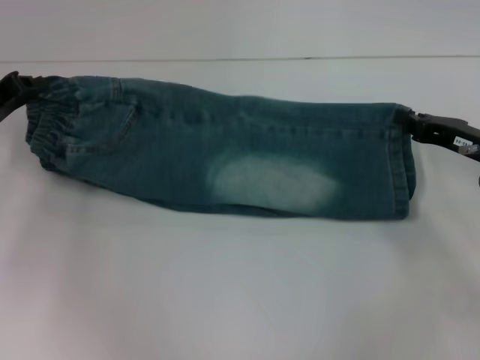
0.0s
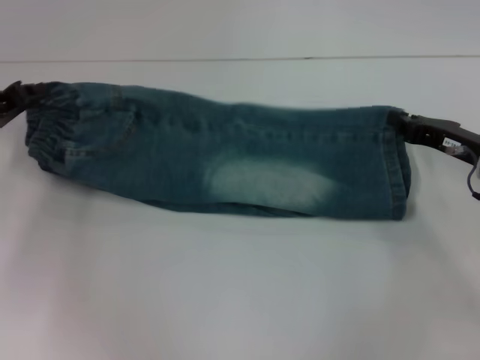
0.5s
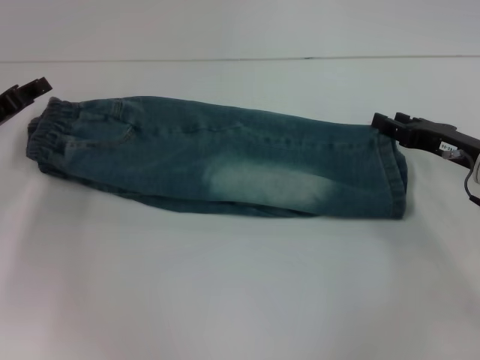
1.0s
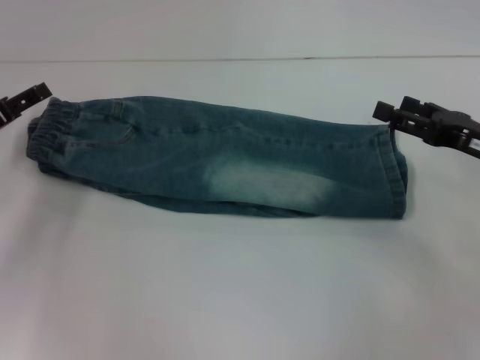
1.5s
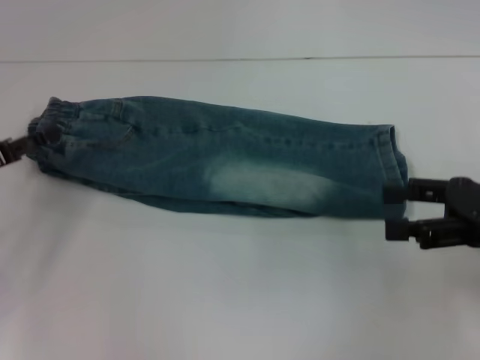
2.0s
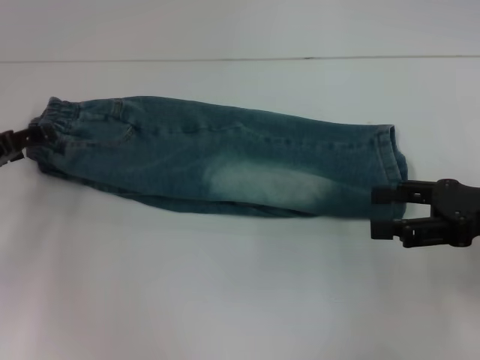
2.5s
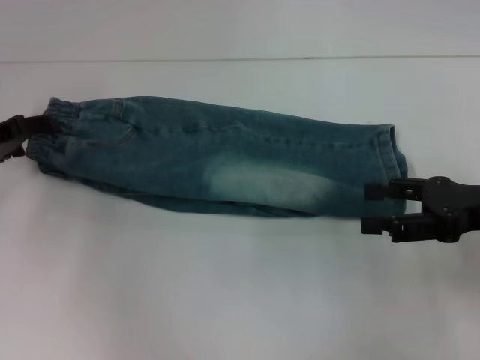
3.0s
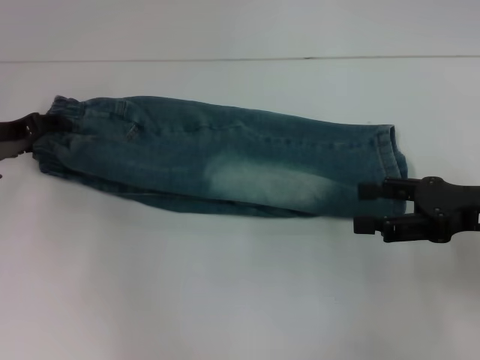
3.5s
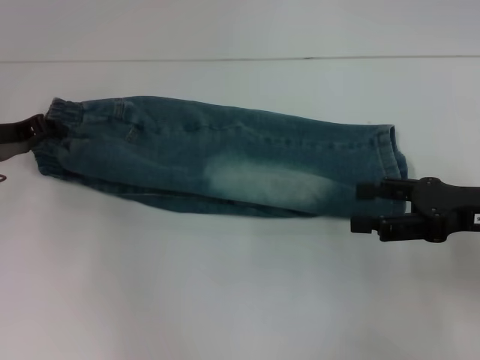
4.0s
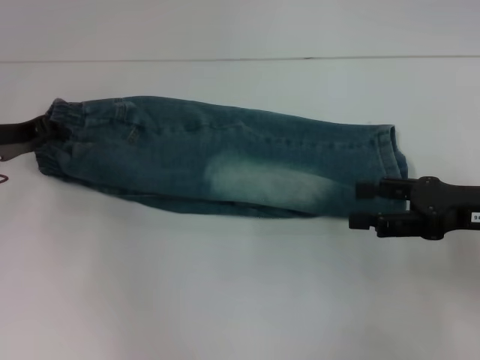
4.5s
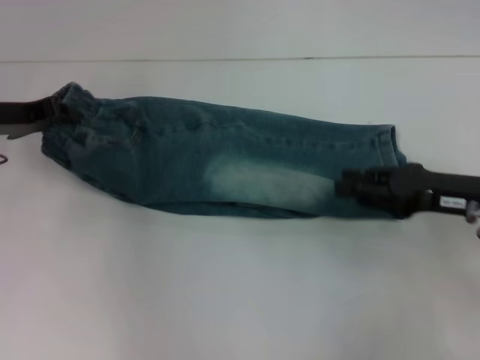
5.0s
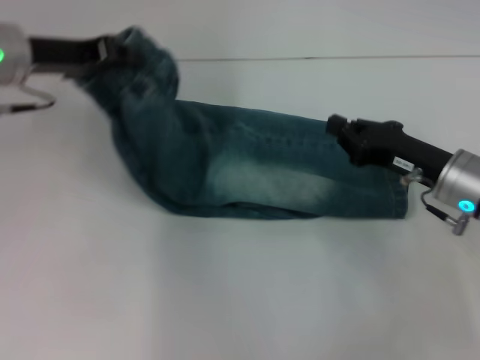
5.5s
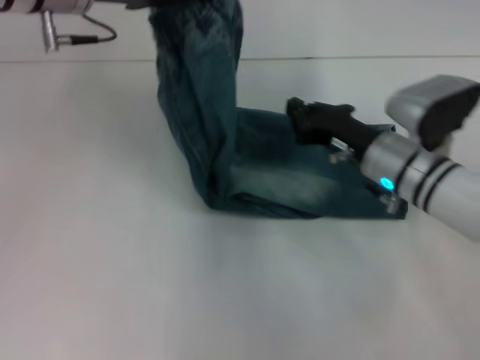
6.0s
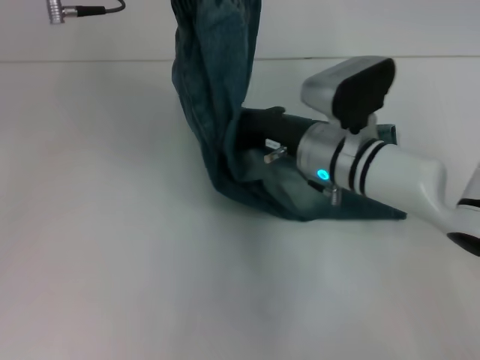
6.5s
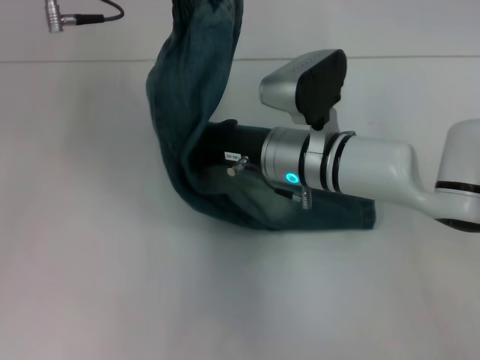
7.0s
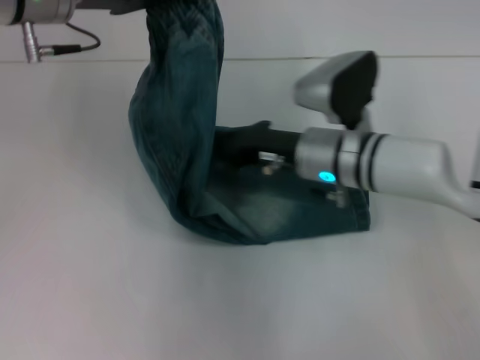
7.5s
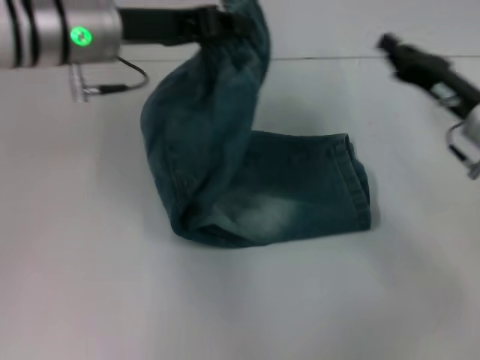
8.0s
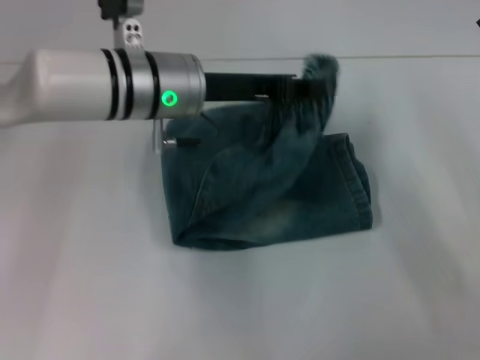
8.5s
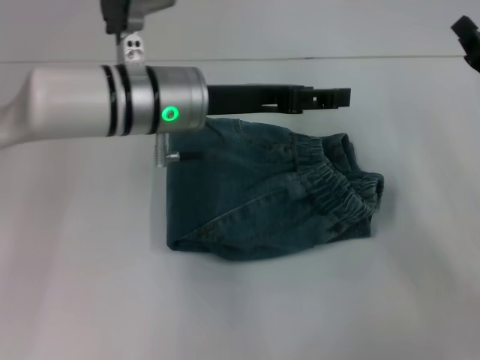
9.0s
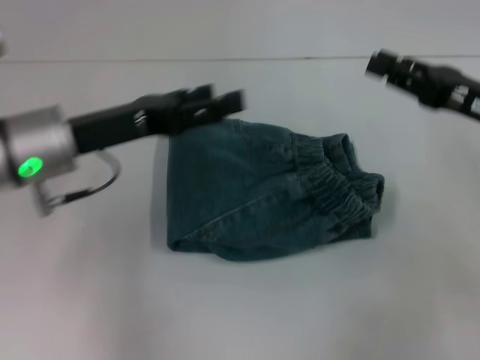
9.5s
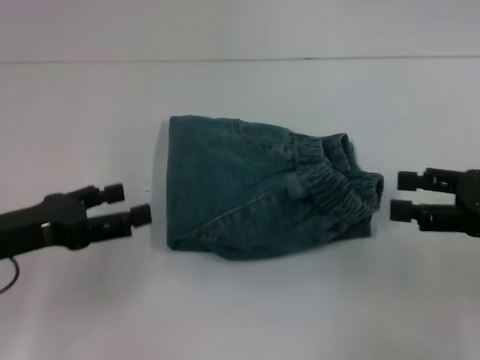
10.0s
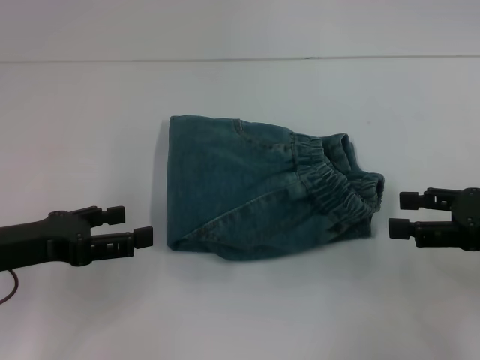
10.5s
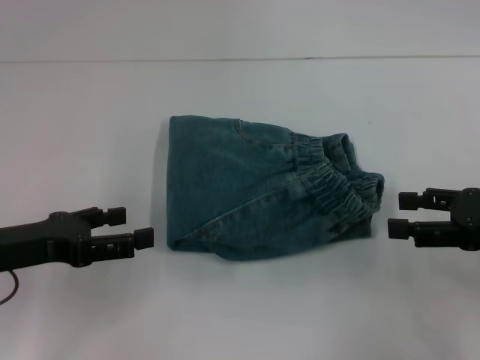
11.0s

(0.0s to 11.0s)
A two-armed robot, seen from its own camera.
Step, 1.0s - 4.0s: Hold the waistband with your left hand.
Step, 4.5s - 7.0s: Press the middle of the pants with your right hand.
Step, 7.5s - 8.5s: Fold to the right with your left hand.
0.0s - 2.0s: The right gripper travels backward and upward by roughly 10 cm, and opens its fingers. The left gripper moves backward, roughly 5 cm, and opens its fingers.
2.0s - 3.5s: The left gripper goes some 10 cm forward.
3.5s - 5.5s: The left gripper shifts roughly 15 cm upward and to the right, and closes up, while the right gripper goes approximately 10 cm downward and to the left, and closes.
5.5s - 7.5s: The right gripper shifts some 15 cm to the left.
7.5s - 9.0s: The right gripper moves to the right, roughly 20 cm. The left gripper shifts roughly 15 cm to the right and downward, and opens up.
9.0s - 11.0s: The left gripper is displaced to the left and backward by about 20 cm, and opens its fingers. The right gripper shifts approximately 5 cm backward, and opens up.

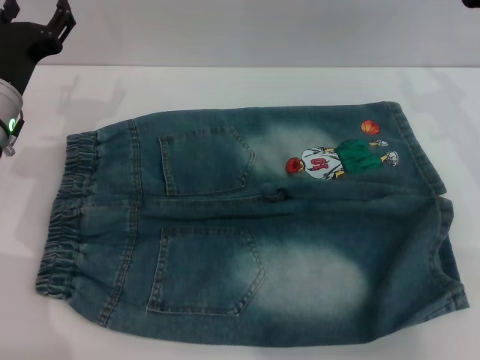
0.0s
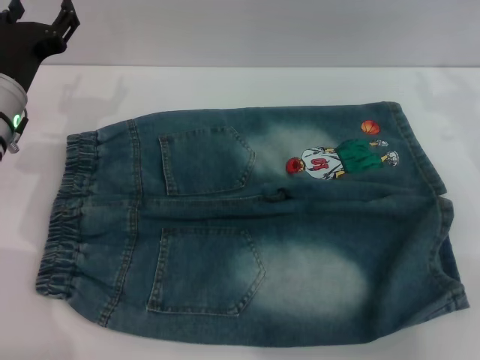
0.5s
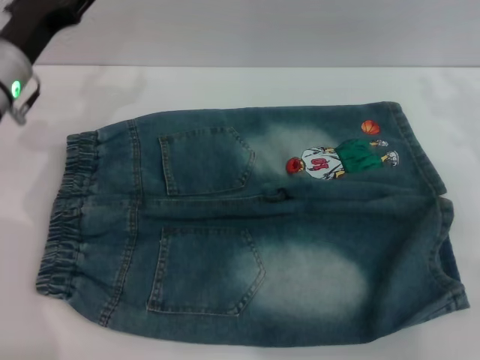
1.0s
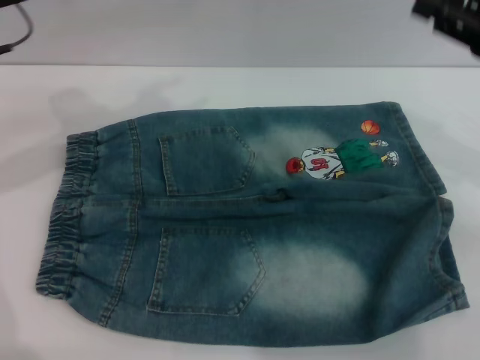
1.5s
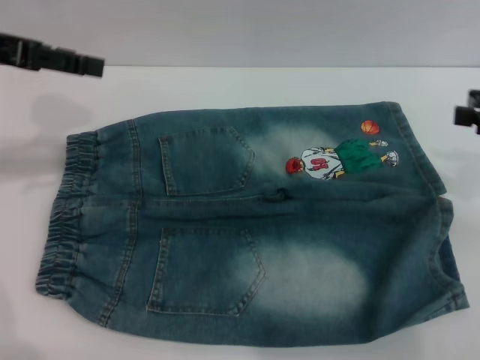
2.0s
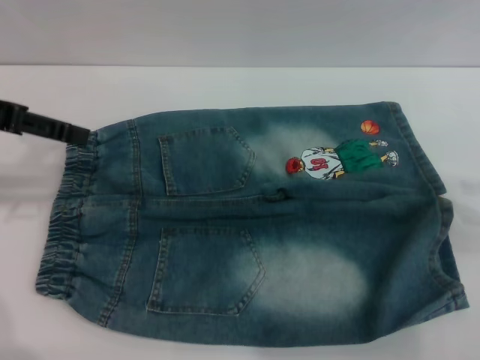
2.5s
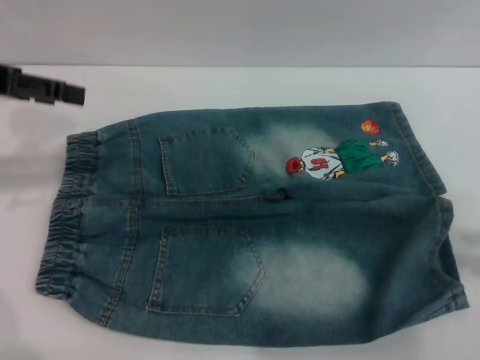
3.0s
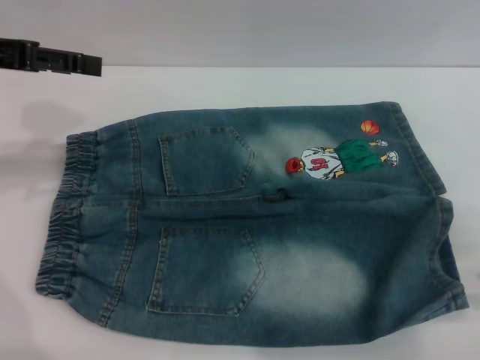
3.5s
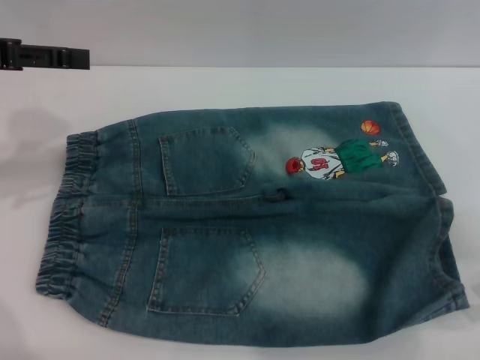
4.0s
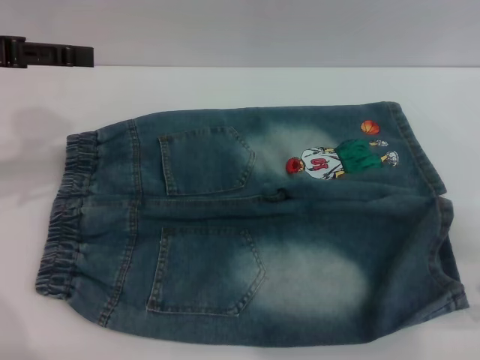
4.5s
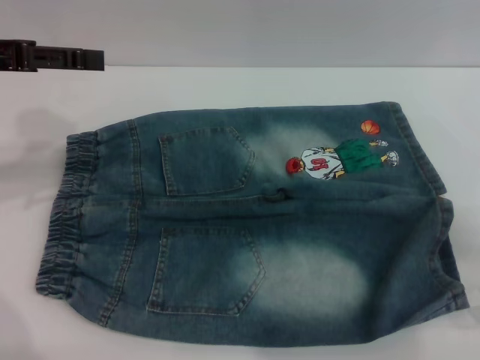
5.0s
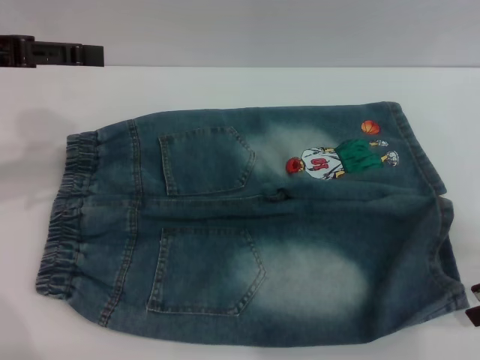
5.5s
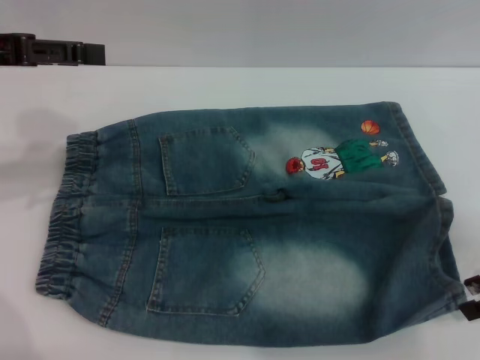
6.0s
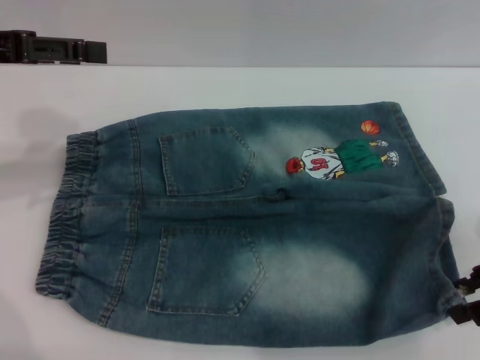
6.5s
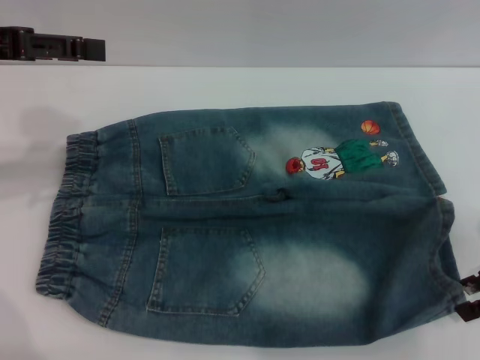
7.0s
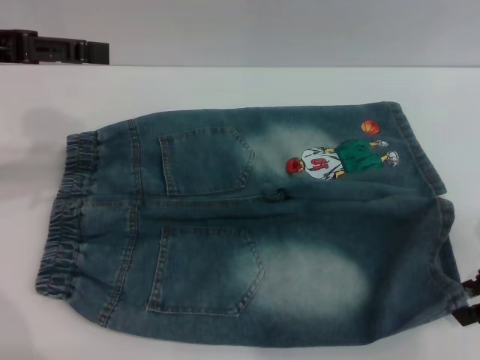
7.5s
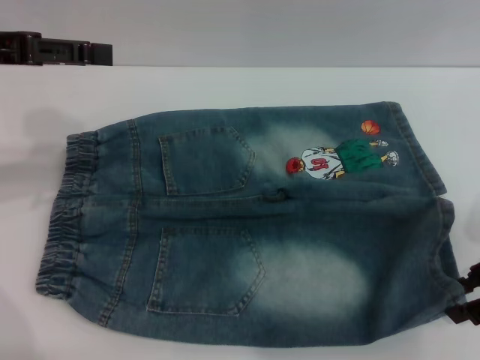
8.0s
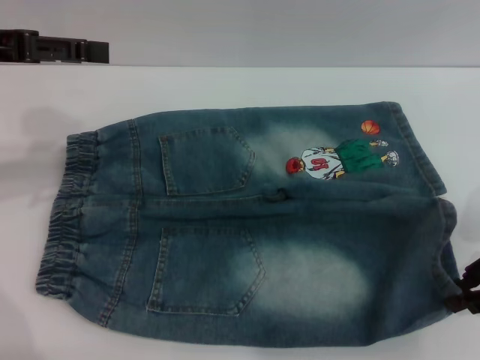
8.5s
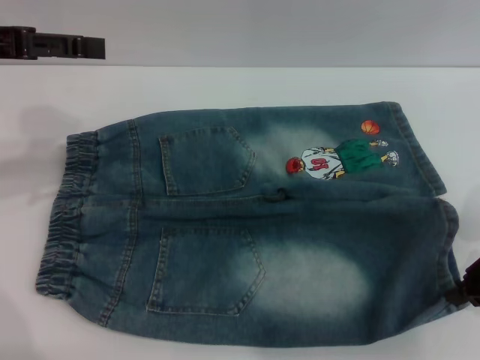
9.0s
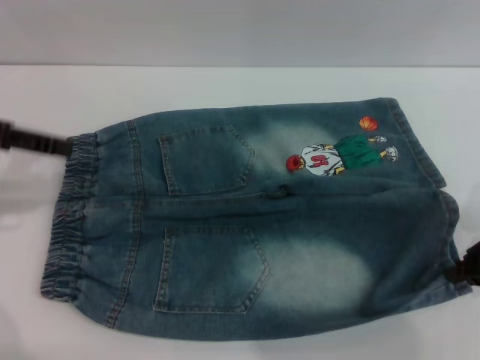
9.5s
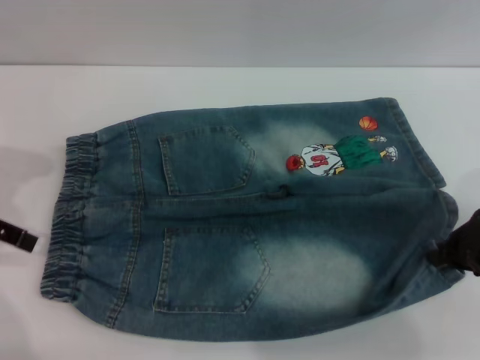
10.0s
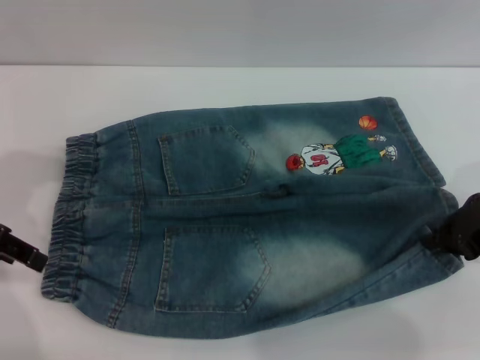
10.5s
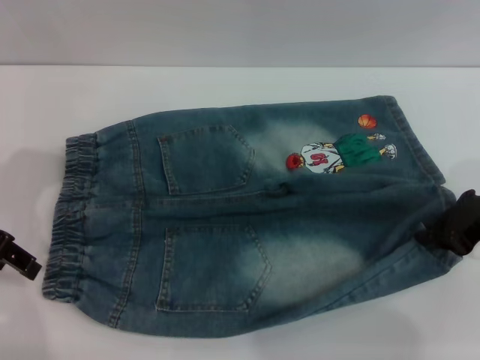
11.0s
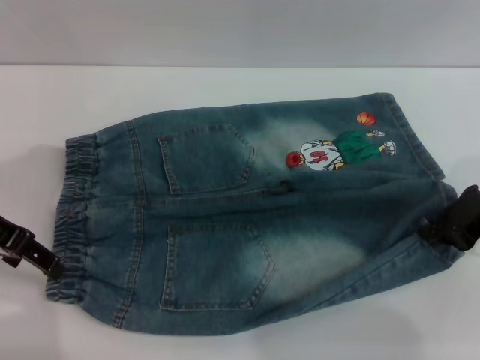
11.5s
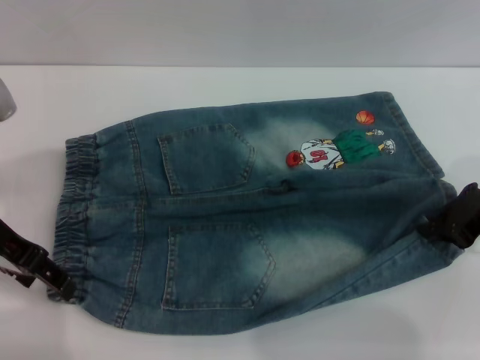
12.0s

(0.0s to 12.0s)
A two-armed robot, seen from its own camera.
0.0s - 2.0s: The left gripper shifts about 15 cm upward.
4.0s - 6.0s: The grippers move only a little.
6.0s - 8.0s: The grippers make only small movements.
8.0s - 10.0s: The left gripper heads downward, covering roughly 5 cm. Meanwhile the right gripper closes.
10.0s - 12.0s: The left gripper moves to the right, approximately 5 cm.

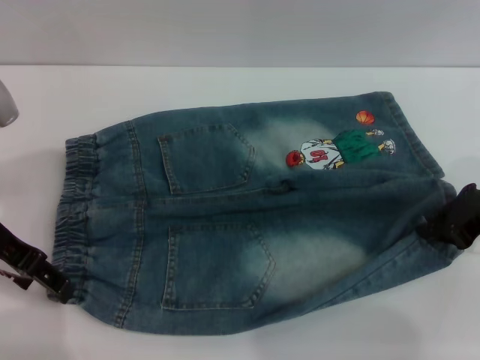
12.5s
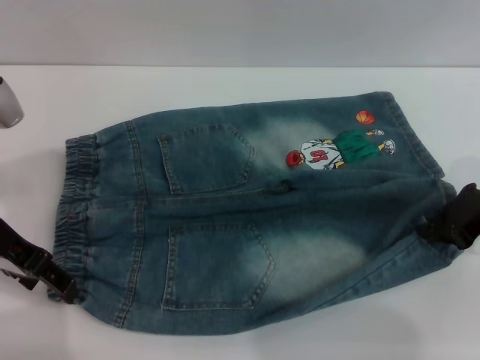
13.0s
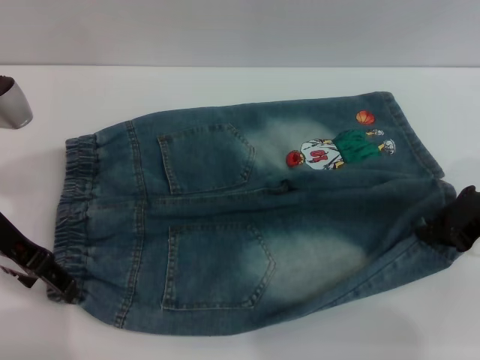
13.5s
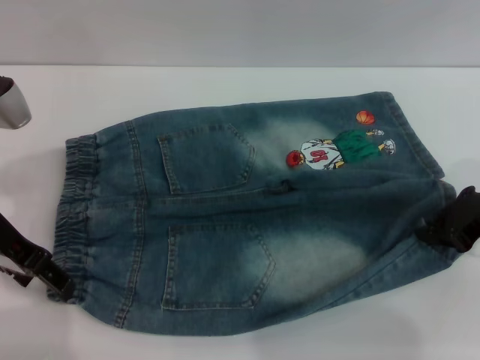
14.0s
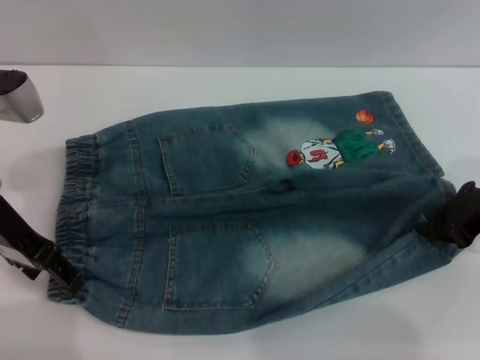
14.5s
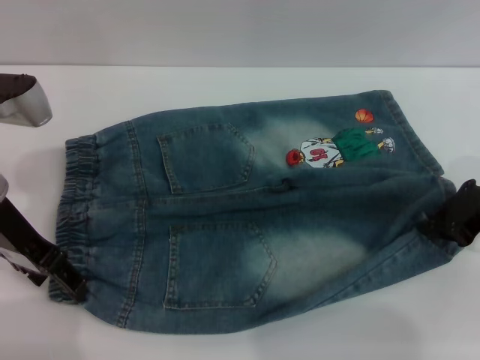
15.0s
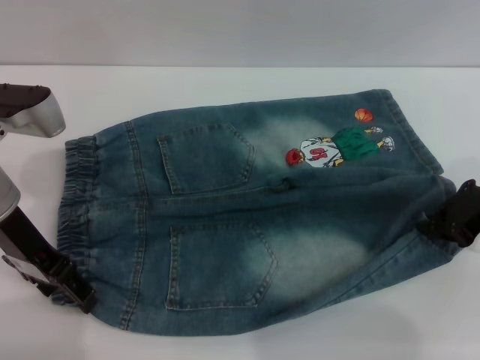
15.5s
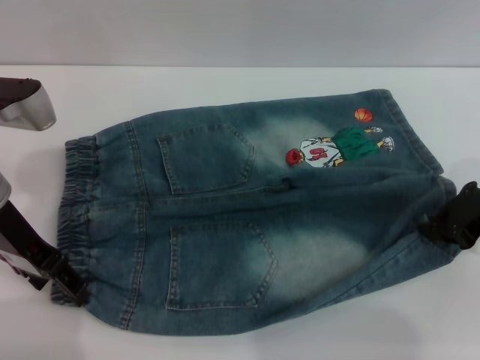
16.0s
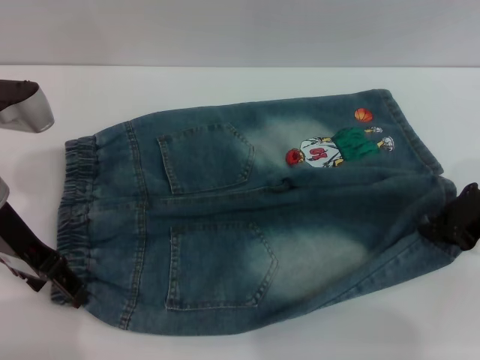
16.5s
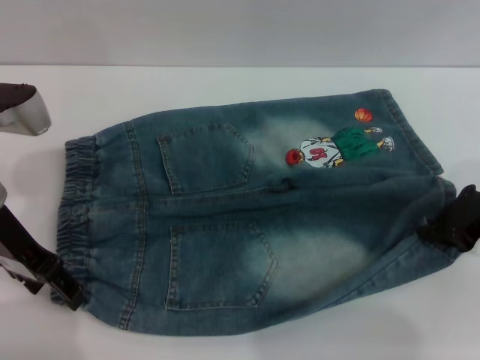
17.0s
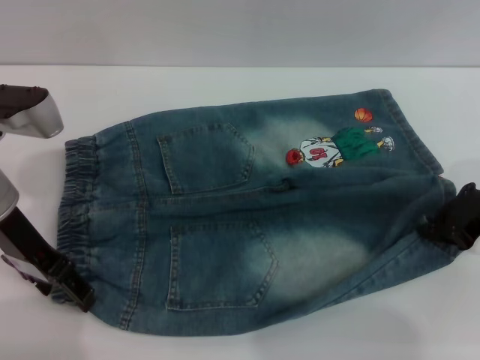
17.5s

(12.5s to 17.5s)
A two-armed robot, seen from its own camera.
12.5s - 15.0s: The grippers move only a little.
15.0s - 17.5s: Both grippers stay about where they are.
